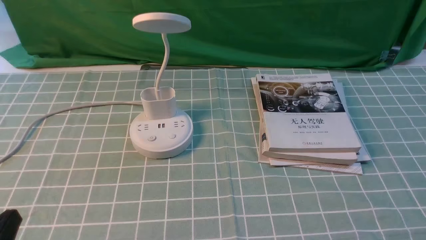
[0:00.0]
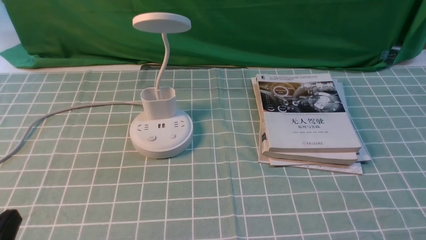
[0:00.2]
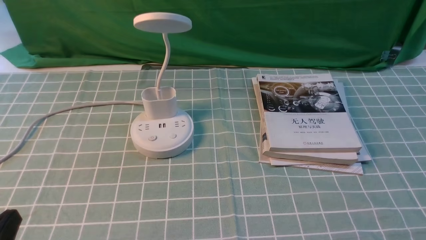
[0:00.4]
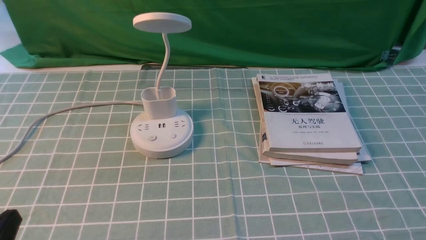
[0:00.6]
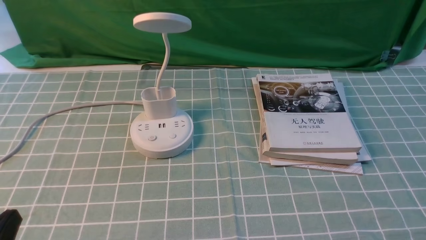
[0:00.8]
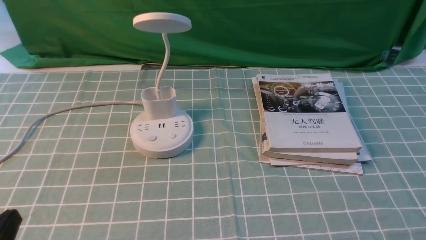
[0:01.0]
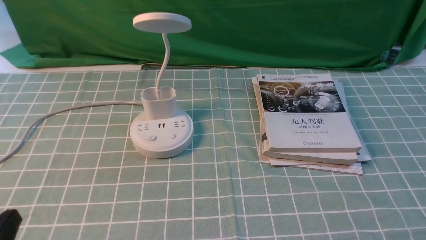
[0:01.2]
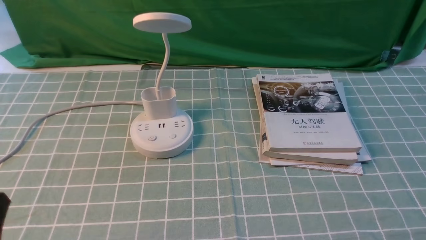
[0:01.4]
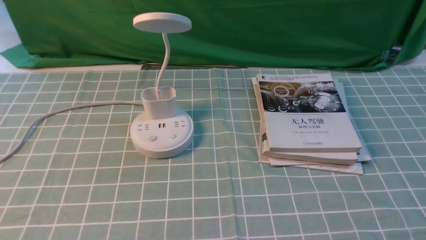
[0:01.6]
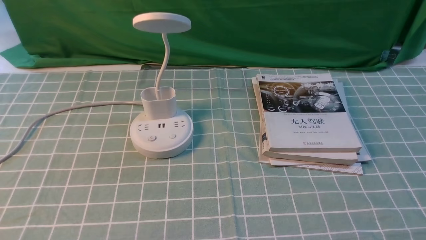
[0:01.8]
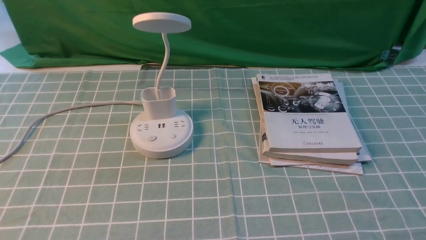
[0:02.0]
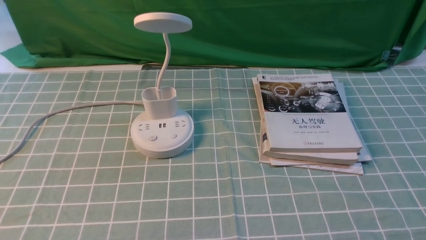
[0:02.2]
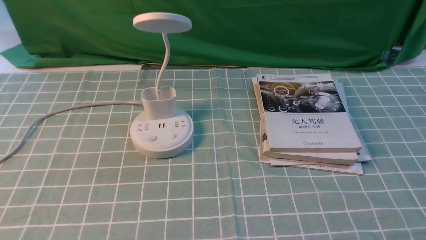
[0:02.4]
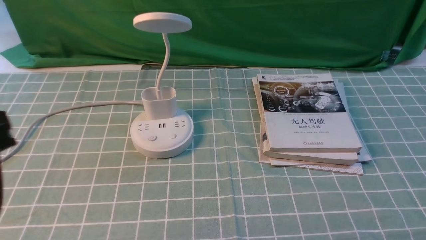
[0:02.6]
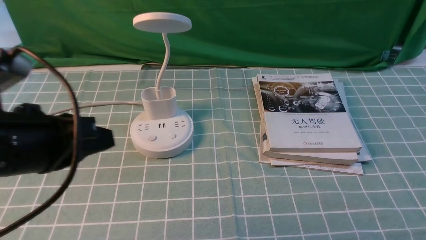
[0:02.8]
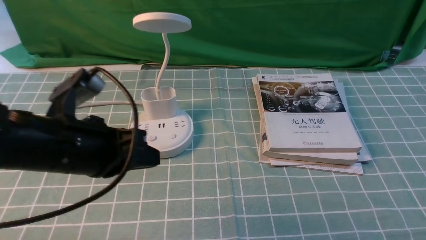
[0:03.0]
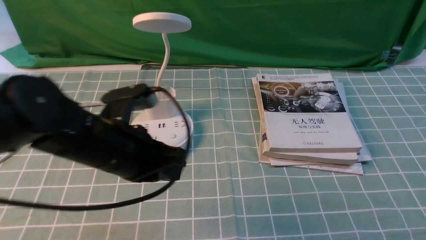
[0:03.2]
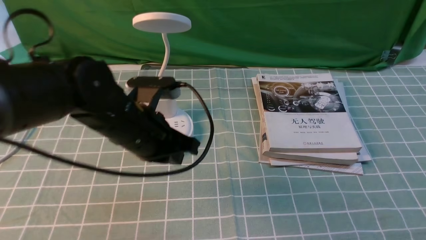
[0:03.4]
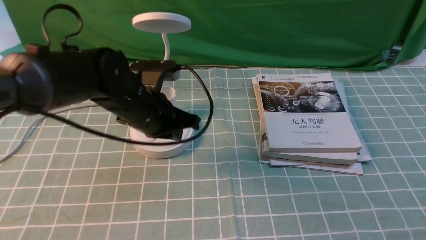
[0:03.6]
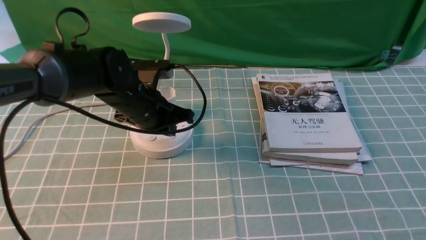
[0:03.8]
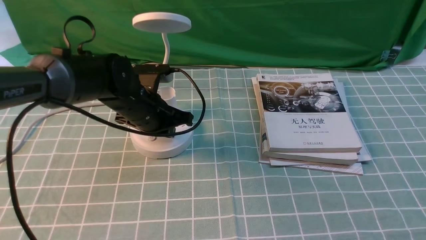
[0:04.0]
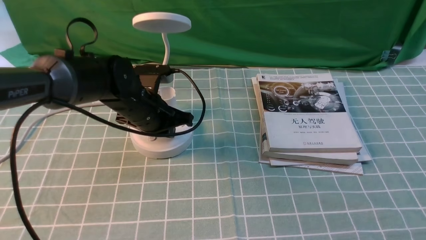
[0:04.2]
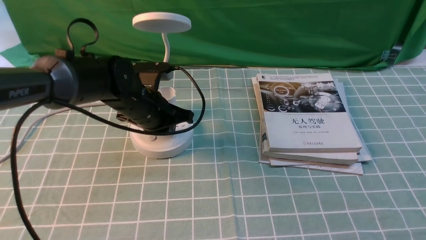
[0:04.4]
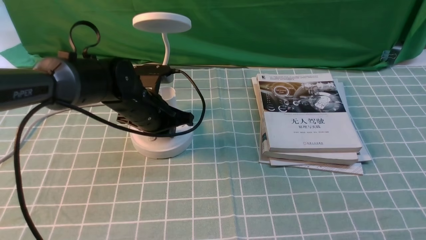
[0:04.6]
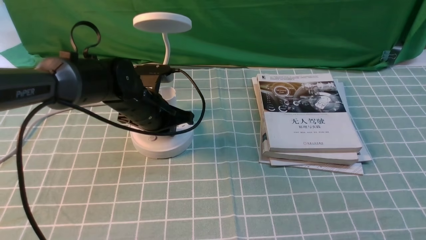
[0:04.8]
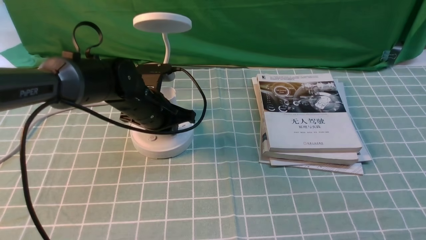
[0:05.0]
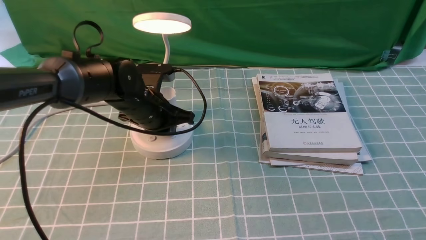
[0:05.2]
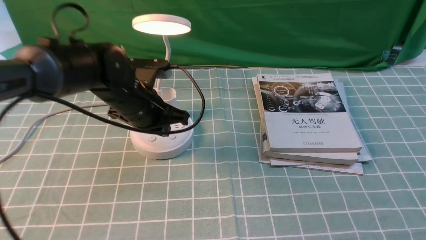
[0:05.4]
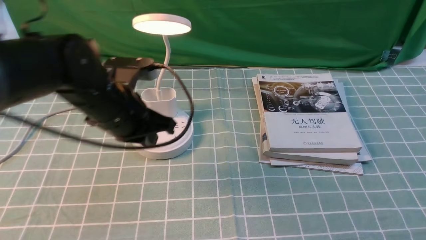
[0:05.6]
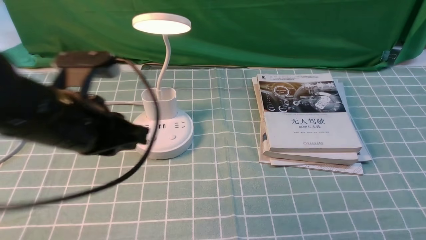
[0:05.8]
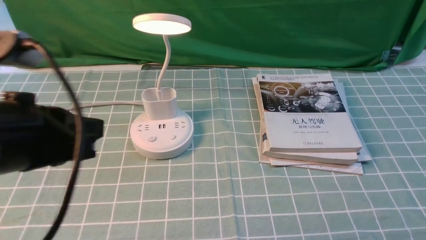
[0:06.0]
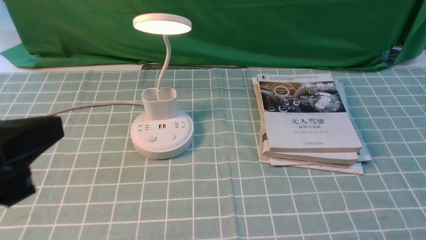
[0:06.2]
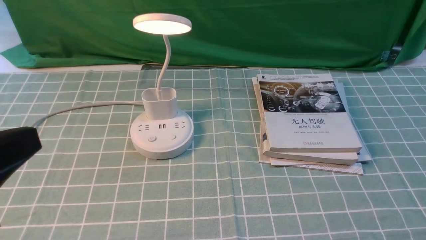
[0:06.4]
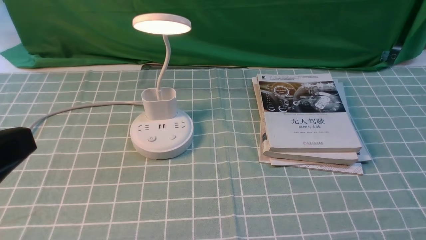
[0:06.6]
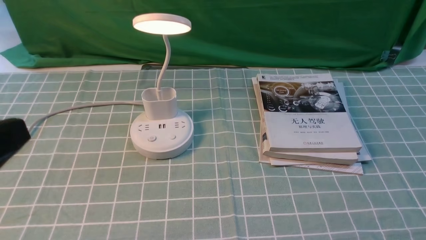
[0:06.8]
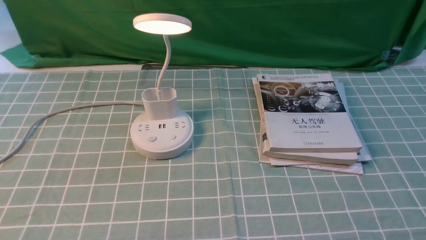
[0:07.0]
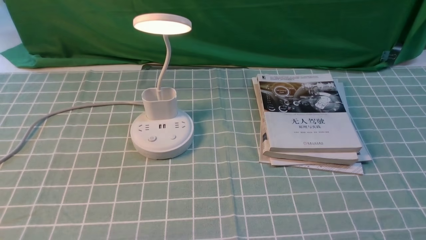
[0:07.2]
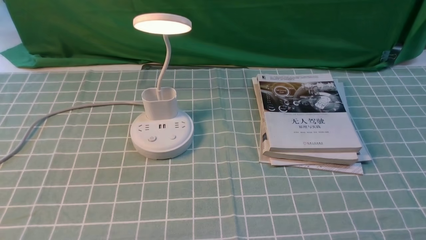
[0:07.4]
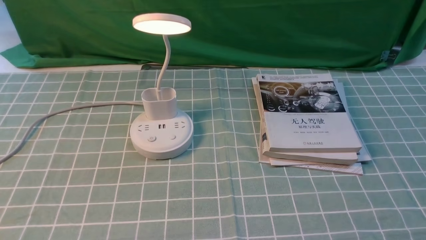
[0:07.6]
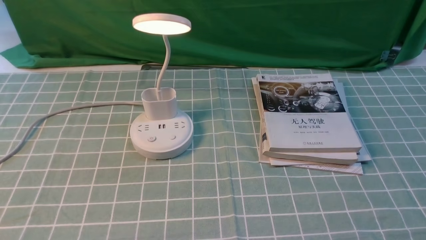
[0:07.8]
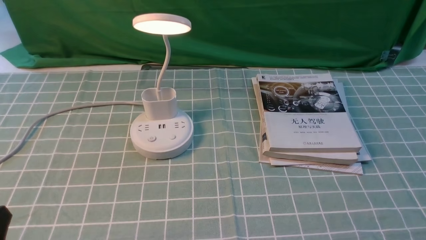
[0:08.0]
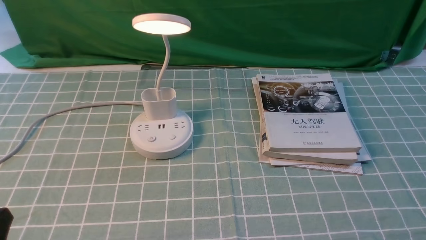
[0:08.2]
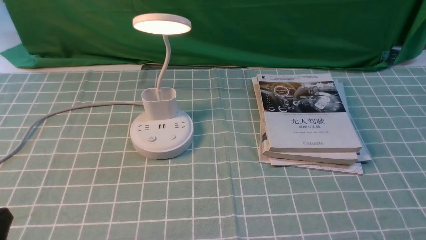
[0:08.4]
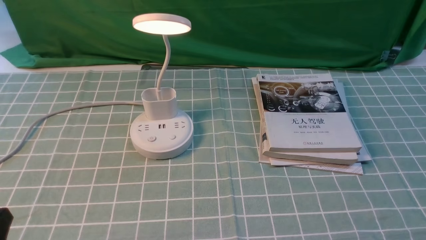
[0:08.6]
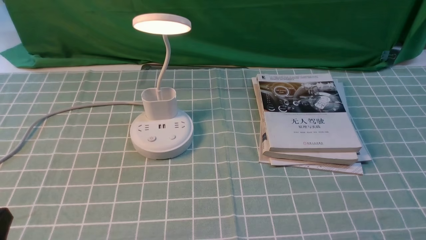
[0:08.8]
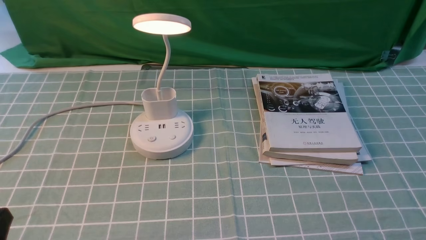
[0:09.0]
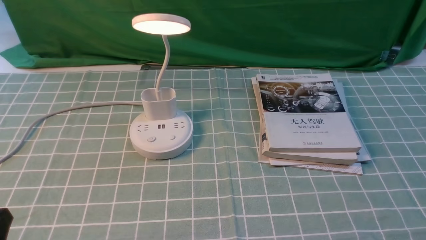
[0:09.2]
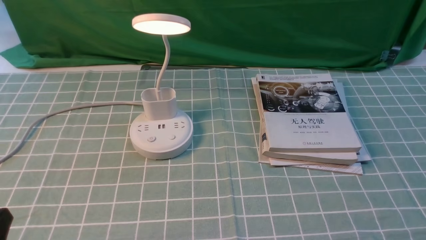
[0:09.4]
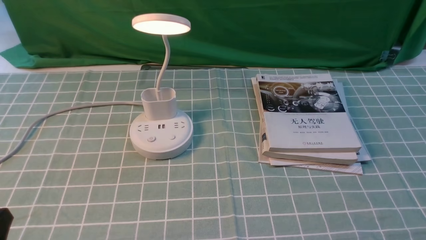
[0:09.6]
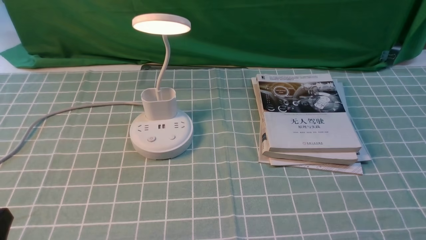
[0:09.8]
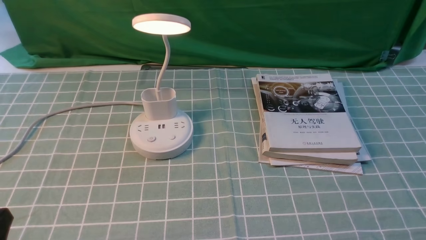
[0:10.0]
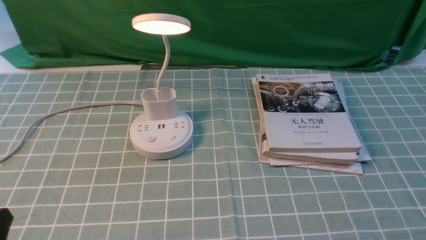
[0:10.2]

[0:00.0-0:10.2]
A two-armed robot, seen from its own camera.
Step, 0:00.0 to 0:05.2: use the left arm to press the button switch on the lamp holder.
0:01.4 to 0:03.0: The left gripper travels forward and to the right by approximately 20 cm, and closes its fingers.
0:03.0 to 0:04.4: The left gripper goes approximately 20 cm forward and downward.
0:04.4 to 0:05.8: The left gripper heads backward and upward, covering approximately 20 cm.
0:05.8 to 0:07.2: The left gripper shifts approximately 20 cm backward and to the left.
0:08.8 to 0:10.2: The two grippers keep their place.
